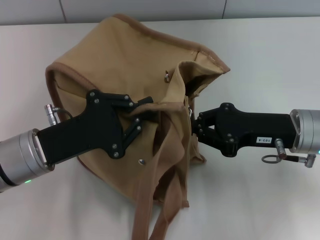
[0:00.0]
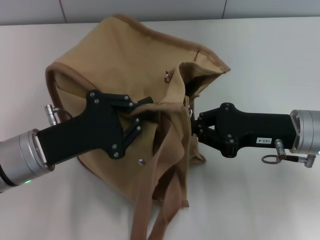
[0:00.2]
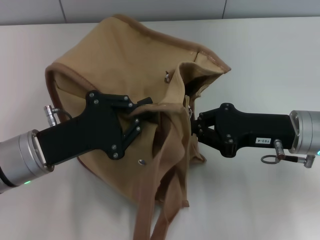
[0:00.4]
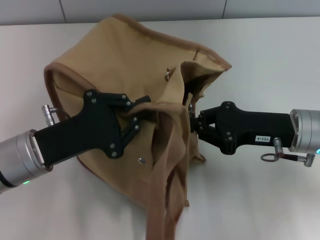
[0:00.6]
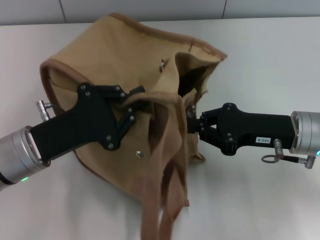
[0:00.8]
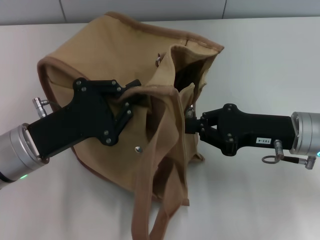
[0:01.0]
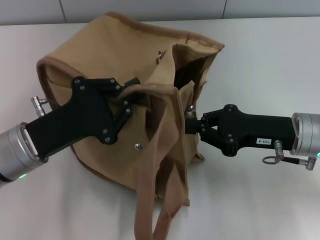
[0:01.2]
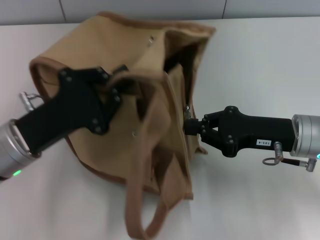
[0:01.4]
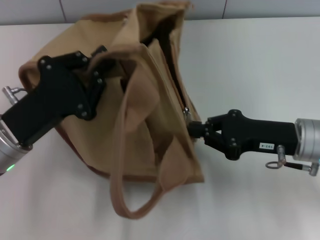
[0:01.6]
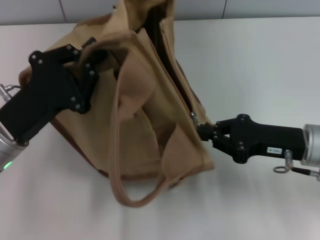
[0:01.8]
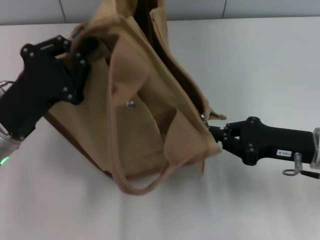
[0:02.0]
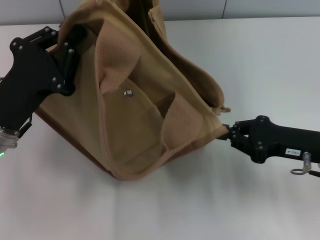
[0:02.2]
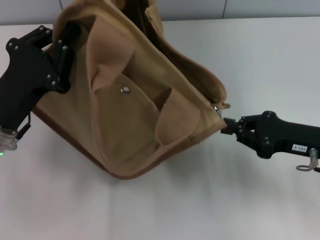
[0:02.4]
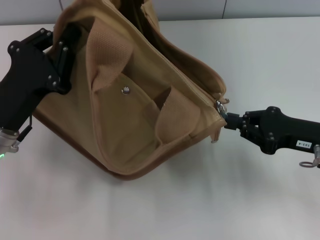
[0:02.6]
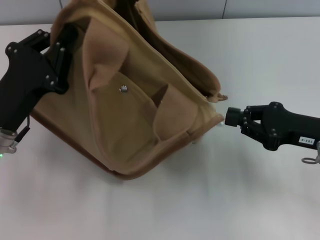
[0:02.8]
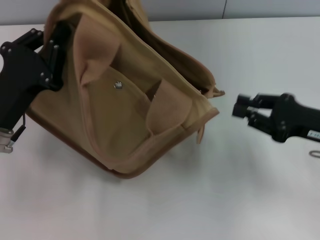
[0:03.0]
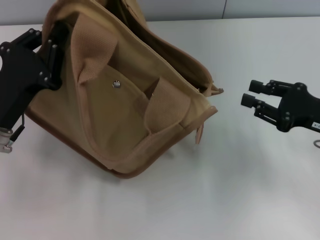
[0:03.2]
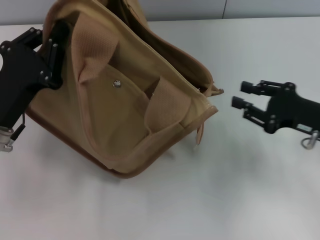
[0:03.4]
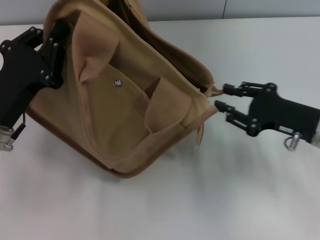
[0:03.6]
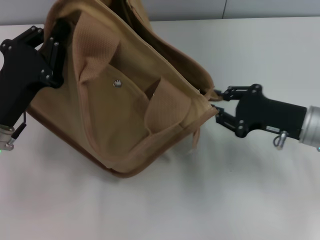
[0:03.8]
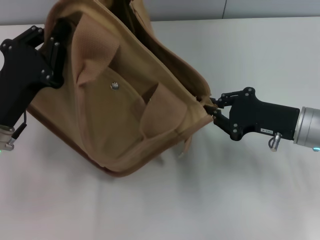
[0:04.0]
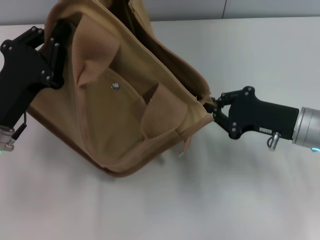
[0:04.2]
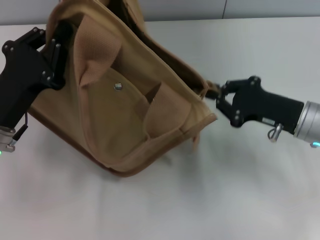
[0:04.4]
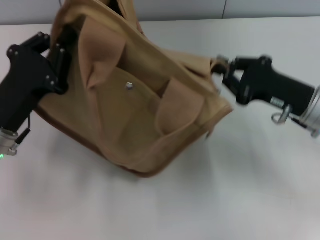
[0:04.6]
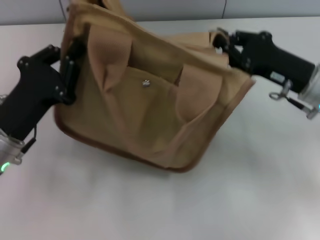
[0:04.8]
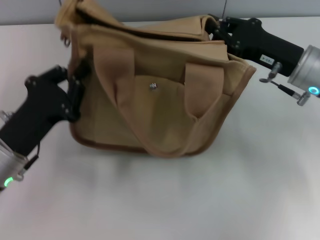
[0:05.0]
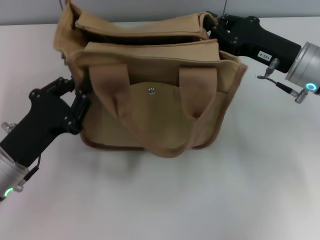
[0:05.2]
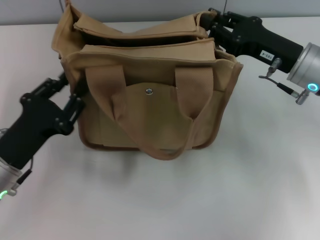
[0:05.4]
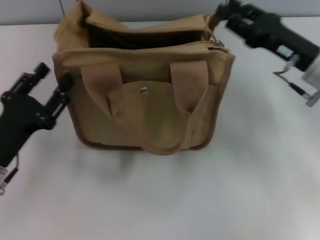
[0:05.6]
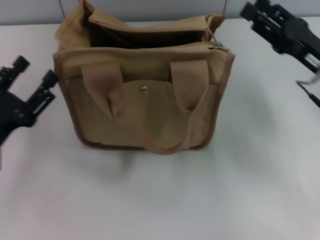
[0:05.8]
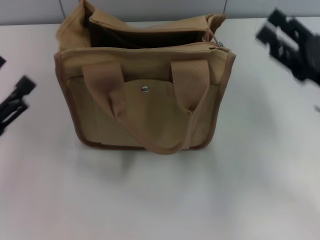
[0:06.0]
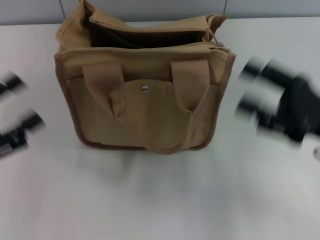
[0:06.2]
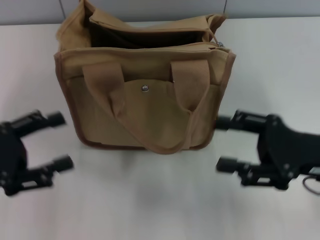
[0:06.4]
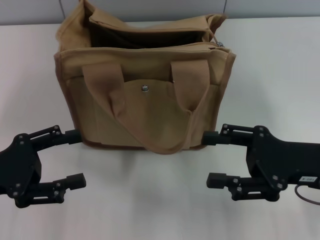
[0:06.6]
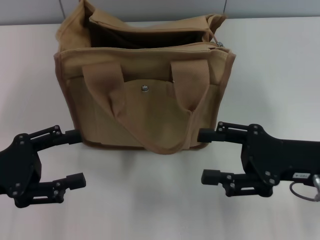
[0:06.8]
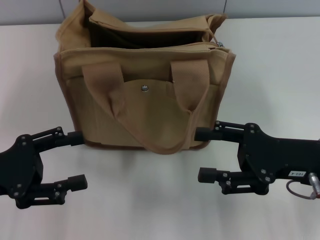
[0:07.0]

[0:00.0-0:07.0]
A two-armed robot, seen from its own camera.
Step, 0:00.0 to 0:02.8: Pull open the zipper with your right hand.
Step, 0:03.0 to 0:05.4: Grab the bag with your left hand.
0:01.4 to 0:02.8: The right gripper shifts some 5 cm to the right.
0:02.8 to 0:04.2: The right gripper moves roughly 5 cm, and opens and closes again.
0:04.2 to 0:05.6: The left gripper shifts by roughly 5 cm, and opens. Meanwhile the right gripper is displaced upward by approximately 5 cm.
0:05.6 to 0:07.0: The left gripper moves upward, some 5 cm, and opens, while the right gripper shifts about 10 cm backward, and opens.

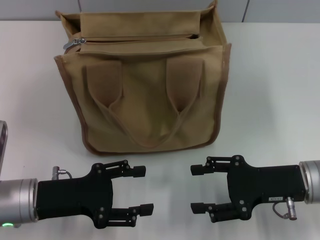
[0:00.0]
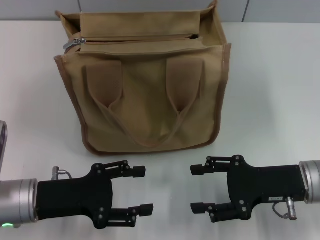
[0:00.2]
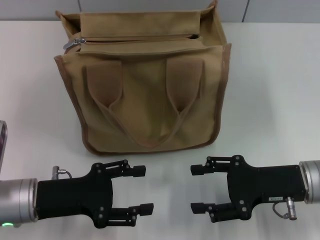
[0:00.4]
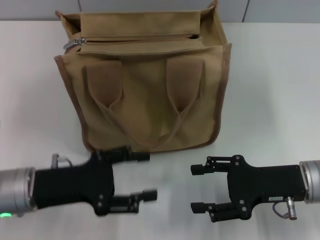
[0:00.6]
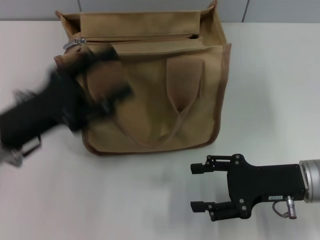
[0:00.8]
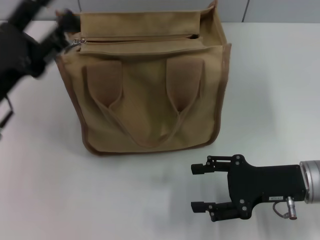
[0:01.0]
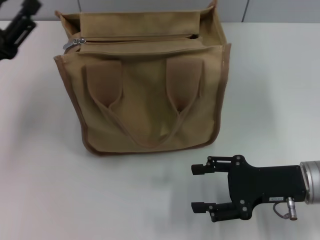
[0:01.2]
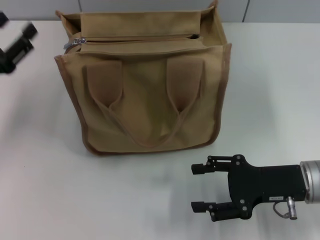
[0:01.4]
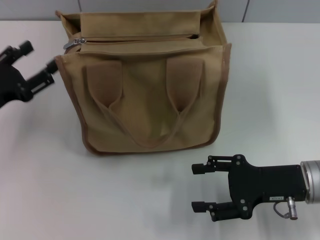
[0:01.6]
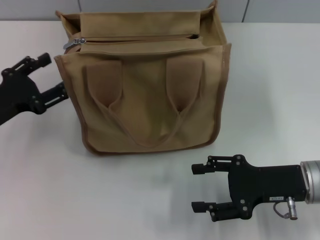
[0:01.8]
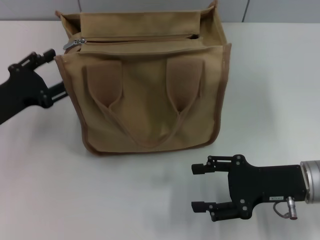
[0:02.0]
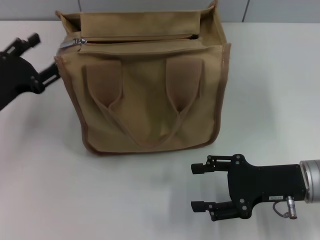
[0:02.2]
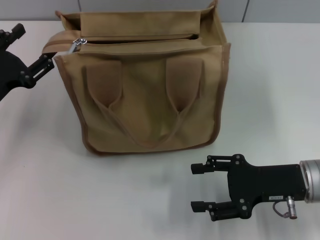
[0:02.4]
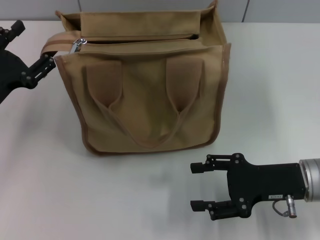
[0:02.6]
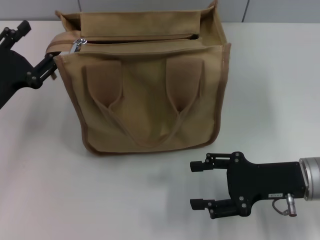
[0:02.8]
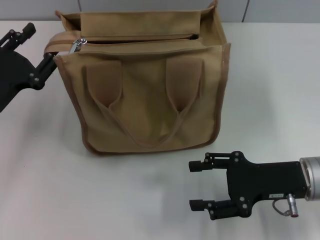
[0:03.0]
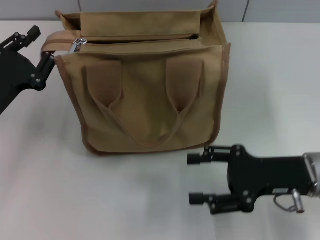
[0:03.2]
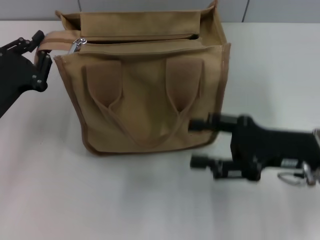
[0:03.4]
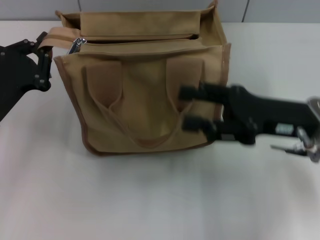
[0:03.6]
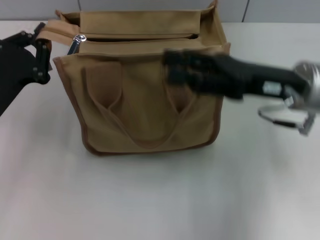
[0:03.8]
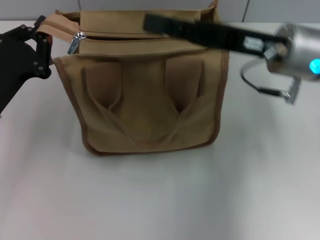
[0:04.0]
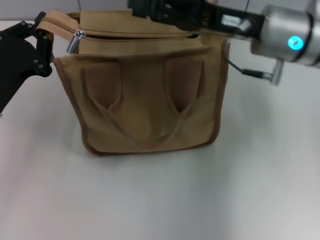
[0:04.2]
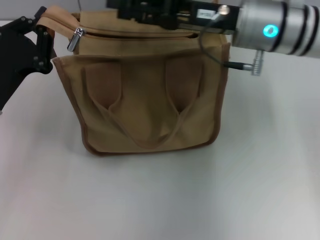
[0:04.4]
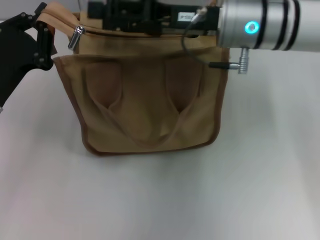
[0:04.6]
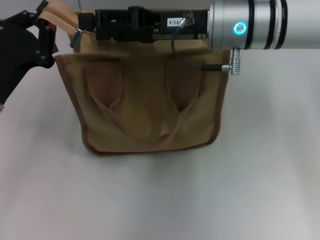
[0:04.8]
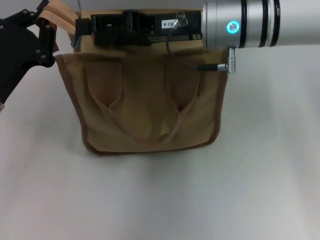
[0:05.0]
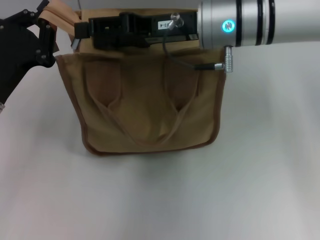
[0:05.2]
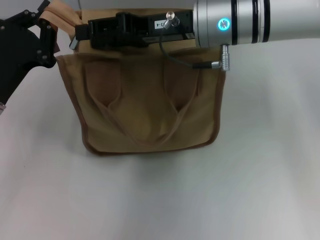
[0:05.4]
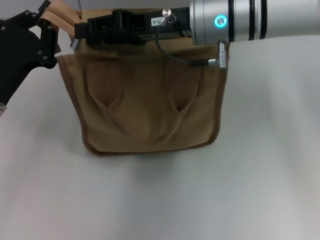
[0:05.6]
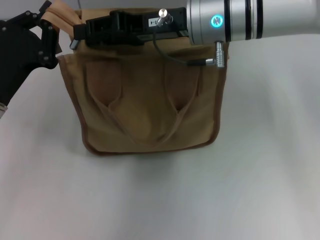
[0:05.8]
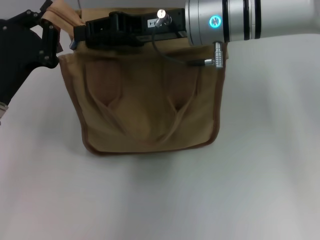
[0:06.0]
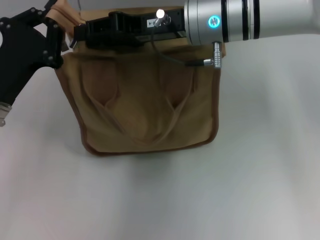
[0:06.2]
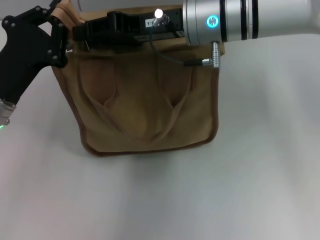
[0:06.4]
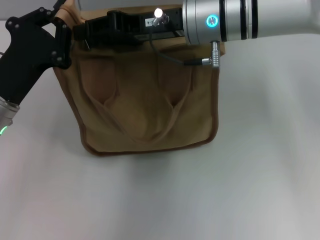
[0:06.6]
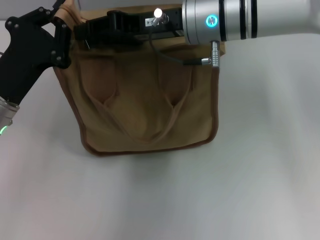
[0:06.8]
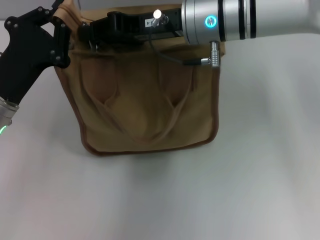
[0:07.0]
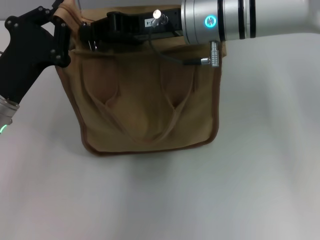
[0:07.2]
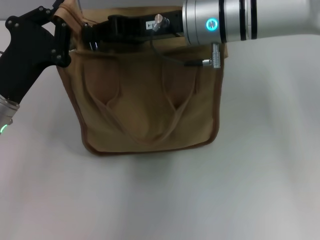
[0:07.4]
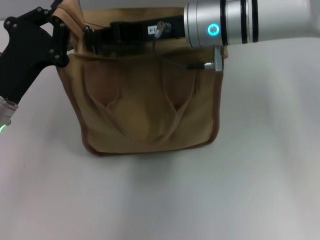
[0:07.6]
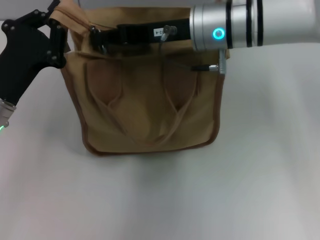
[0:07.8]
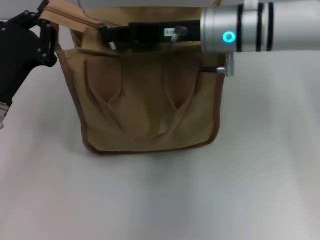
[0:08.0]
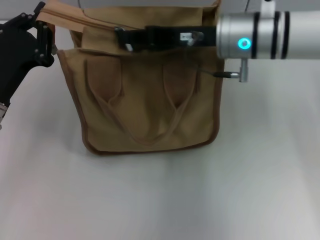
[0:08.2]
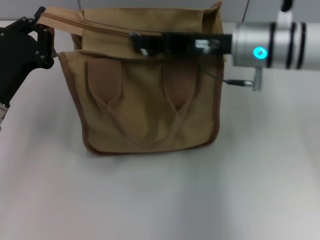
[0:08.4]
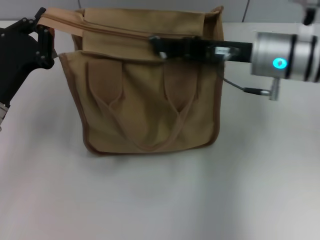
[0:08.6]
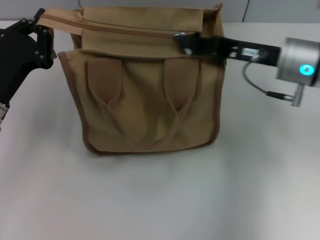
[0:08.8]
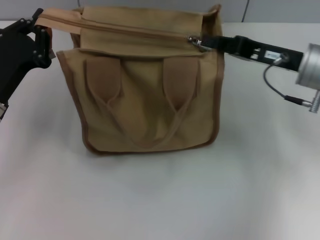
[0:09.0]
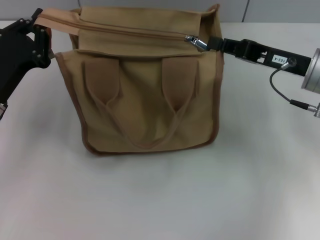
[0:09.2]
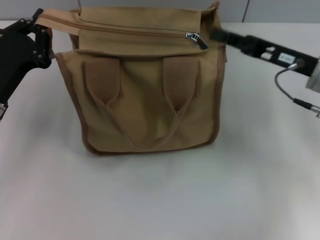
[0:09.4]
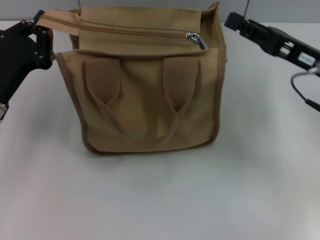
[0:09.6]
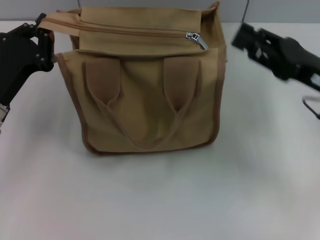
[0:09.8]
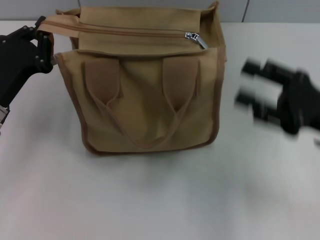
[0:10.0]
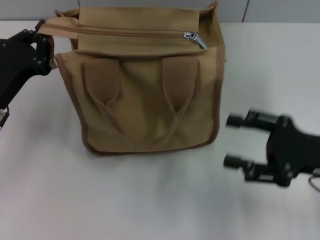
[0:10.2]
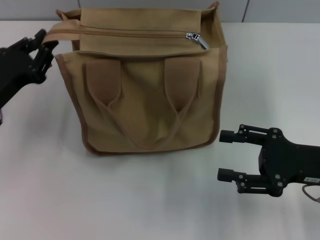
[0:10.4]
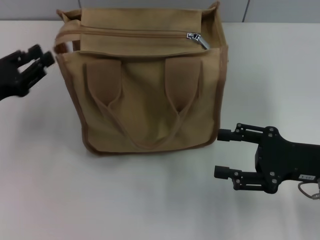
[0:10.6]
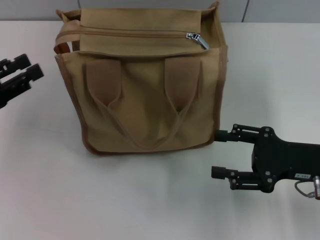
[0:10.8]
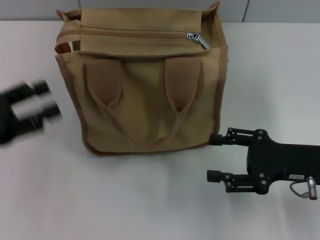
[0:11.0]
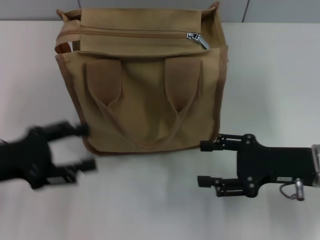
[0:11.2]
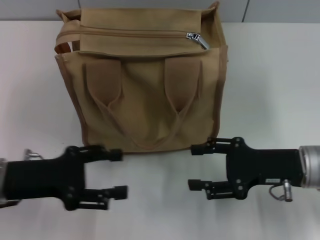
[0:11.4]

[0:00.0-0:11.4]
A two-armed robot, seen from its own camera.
Step, 0:00.0 to 0:09.6: Pull up the zipper with your right hand.
Step, 0:09.8 to 0:10.6: Grab the zipper with your left hand.
0:00.0 to 0:01.4: The left gripper moves to the left and forward, about 10 cm.
0:01.4 to 0:02.8: There are only small adjustments of the grippers.
0:02.8 to 0:04.2: The right gripper is displaced upward, forward and to the left by roughly 20 cm. Meanwhile the left gripper closes its fingers.
0:04.2 to 0:05.6: The right gripper moves to the left, roughly 5 cm.
0:05.6 to 0:07.2: There are only small adjustments of the grippers.
0:07.2 to 0:08.6: The right gripper travels to the right by about 10 cm.
0:08.6 to 0:10.0: The right gripper moves backward and to the right, roughly 15 cm, and opens.
0:10.0 to 0:11.4: The right gripper moves roughly 5 cm, and opens up; the left gripper is displaced backward by about 5 cm, reaches about 10 cm to the left, then returns, and opens its fingers.

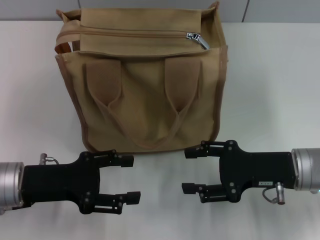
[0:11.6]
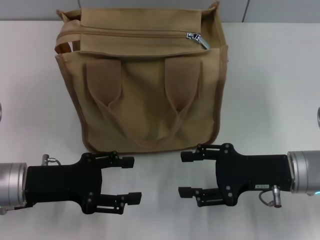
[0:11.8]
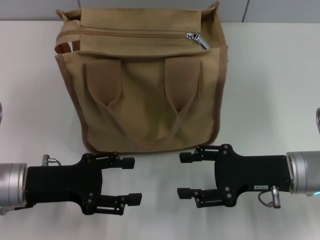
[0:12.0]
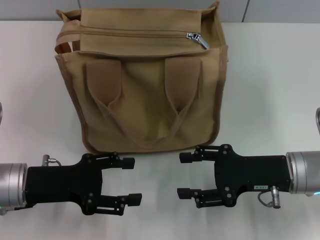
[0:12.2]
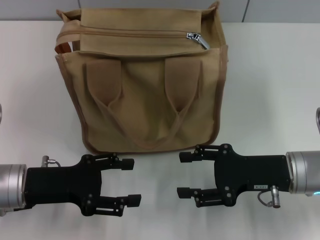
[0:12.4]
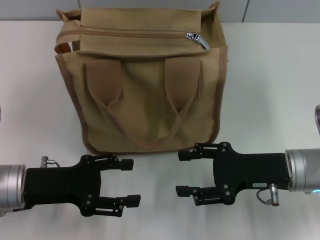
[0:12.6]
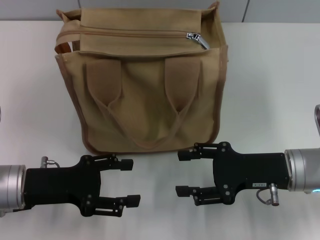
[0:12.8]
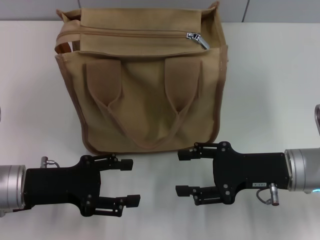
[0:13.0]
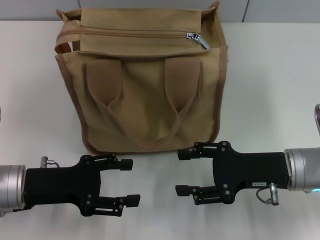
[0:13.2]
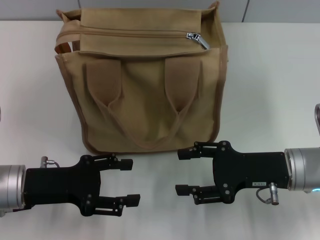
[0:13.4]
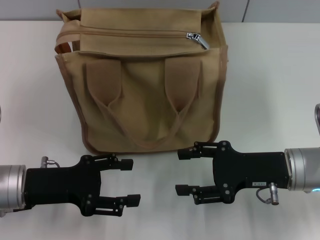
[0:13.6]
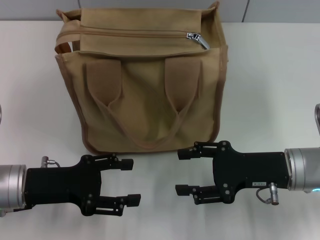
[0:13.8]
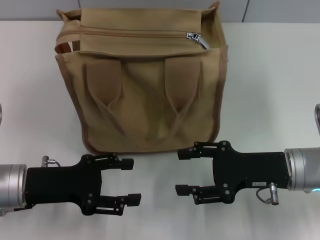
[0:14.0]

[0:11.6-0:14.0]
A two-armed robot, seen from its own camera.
0:11.6 to 0:14.0: The two grippers keep their place.
